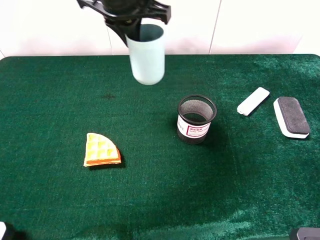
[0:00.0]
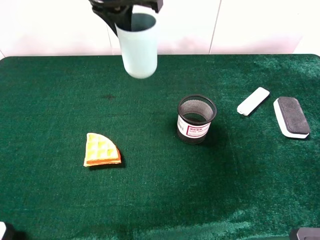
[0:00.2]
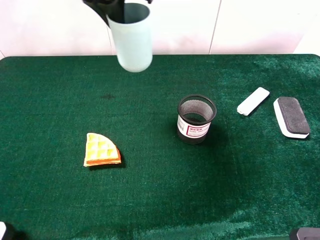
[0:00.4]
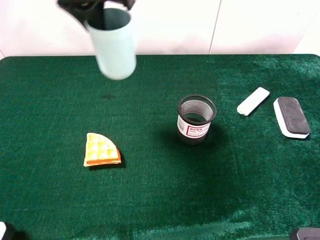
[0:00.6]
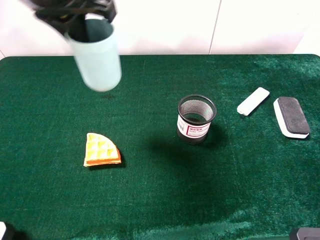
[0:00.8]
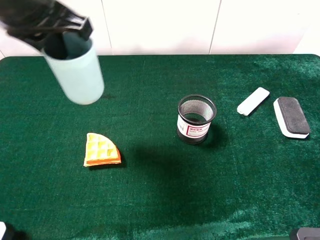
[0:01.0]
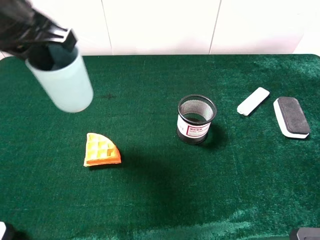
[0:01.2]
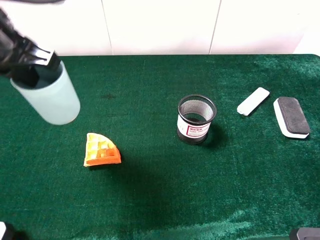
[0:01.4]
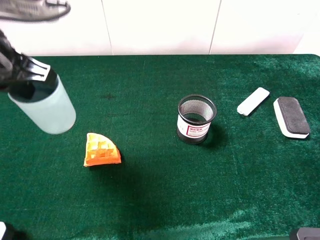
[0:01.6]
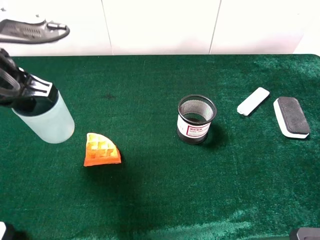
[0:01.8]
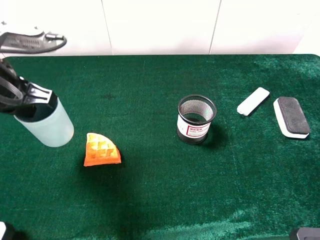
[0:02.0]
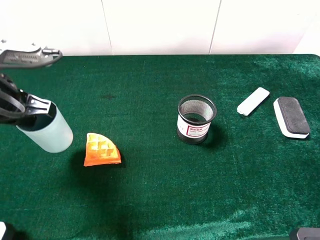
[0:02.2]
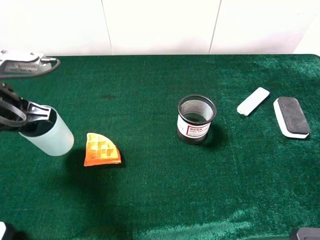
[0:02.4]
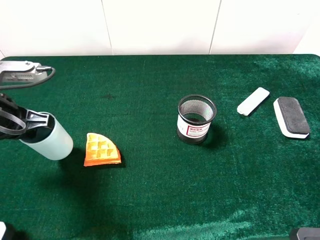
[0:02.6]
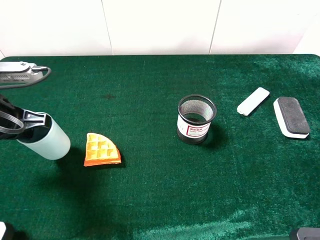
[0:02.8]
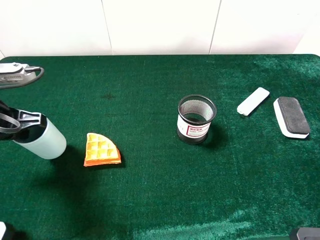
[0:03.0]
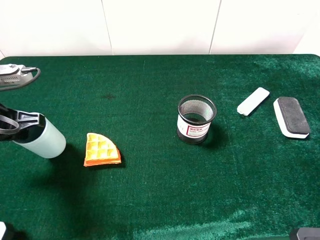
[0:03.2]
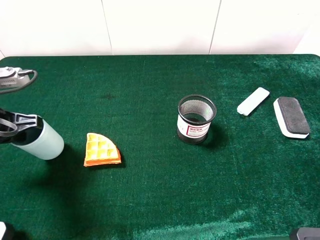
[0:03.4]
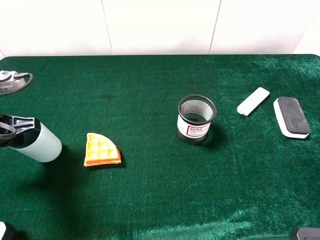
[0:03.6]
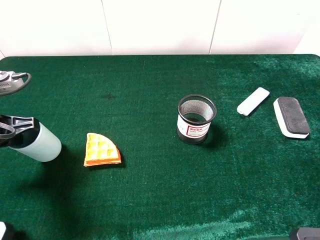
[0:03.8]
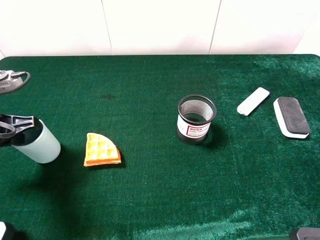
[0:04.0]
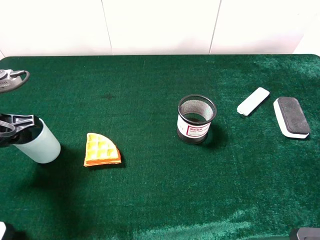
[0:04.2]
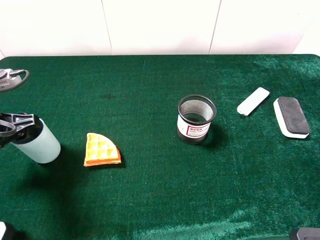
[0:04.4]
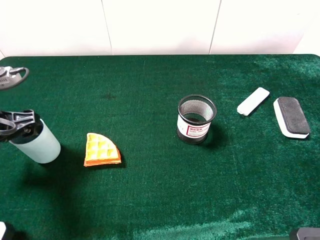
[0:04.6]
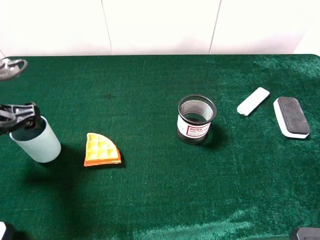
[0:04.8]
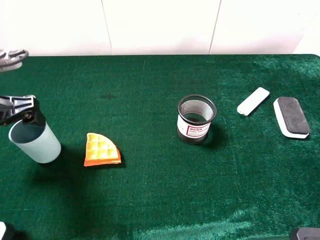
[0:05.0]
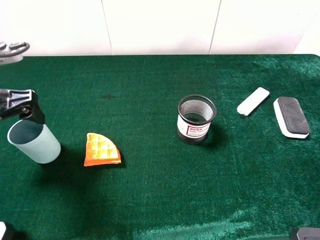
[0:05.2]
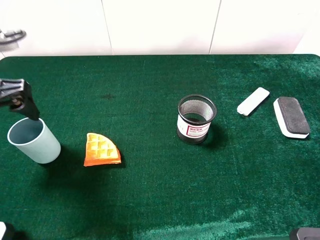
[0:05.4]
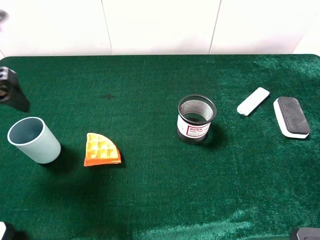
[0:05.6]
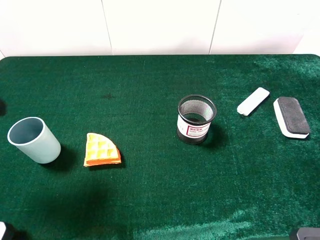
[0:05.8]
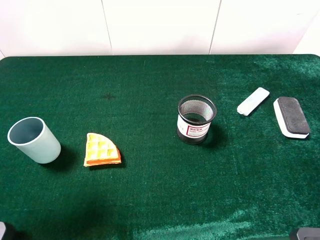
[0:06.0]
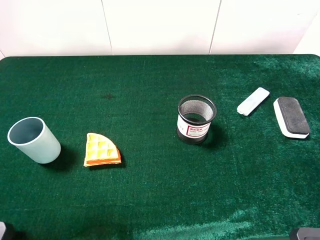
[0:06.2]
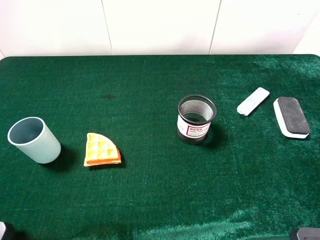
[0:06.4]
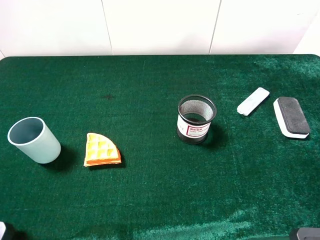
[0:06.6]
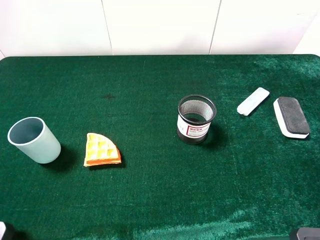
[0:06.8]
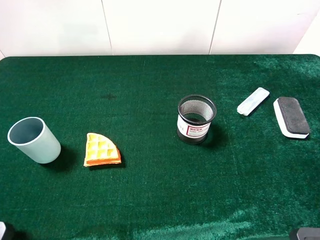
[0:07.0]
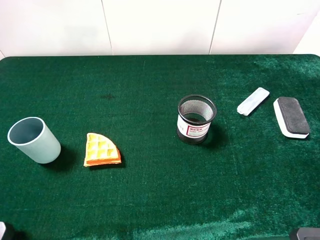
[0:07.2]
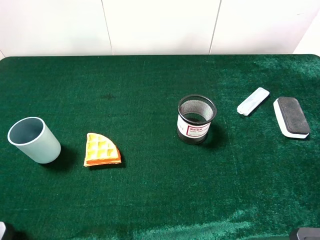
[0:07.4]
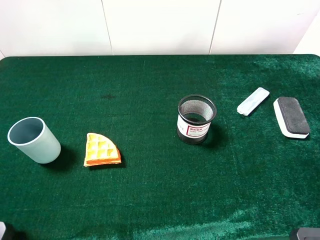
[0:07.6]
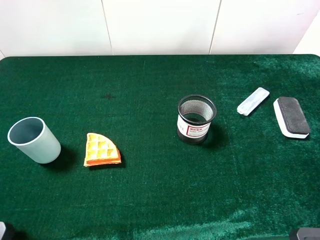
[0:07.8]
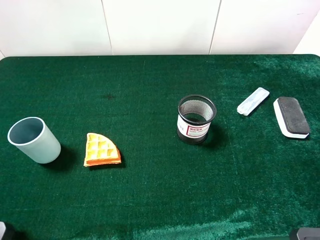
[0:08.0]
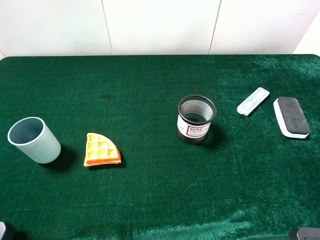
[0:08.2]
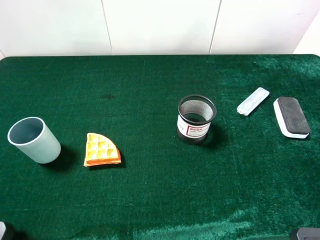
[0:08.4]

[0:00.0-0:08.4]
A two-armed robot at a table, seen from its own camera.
Task of the whole recording: the gripper move the object.
Step, 0:00.0 to 0:05.2: Place the cyan cup on the table with the left gripper.
0:00.0 to 0:01.4: The left gripper goes approximately 20 cm backward and to the left.
0:01.4 to 0:02.8: The left gripper heads downward and to the left, covering about 15 cm.
0:02.8 to 0:04.2: The left gripper opens up.
0:04.2 to 0:05.6: The left gripper heads upward, covering about 10 cm, and opens.
0:05.6 to 0:07.0: The left gripper is displaced backward by about 15 cm.

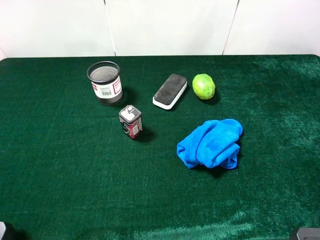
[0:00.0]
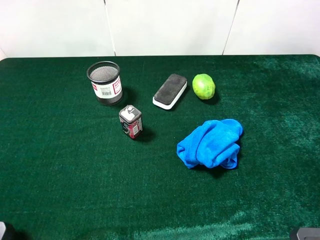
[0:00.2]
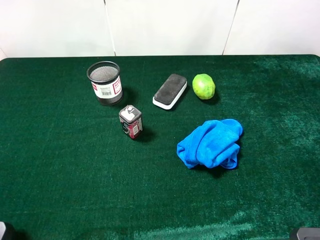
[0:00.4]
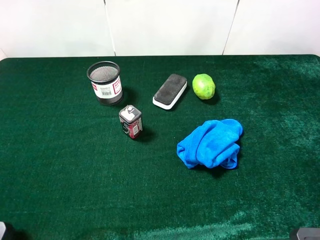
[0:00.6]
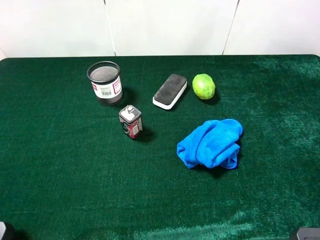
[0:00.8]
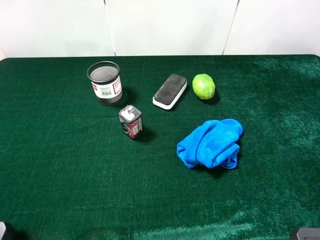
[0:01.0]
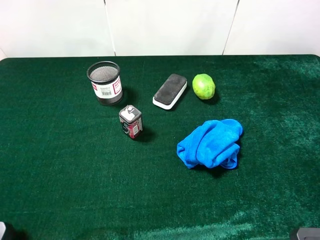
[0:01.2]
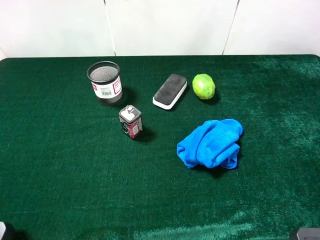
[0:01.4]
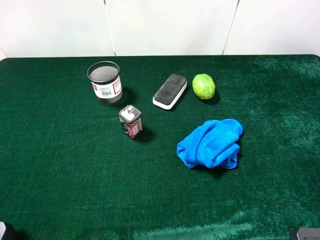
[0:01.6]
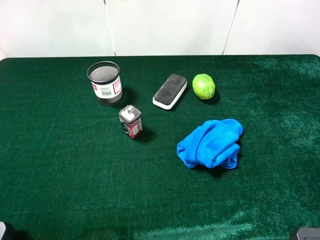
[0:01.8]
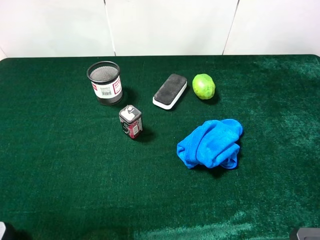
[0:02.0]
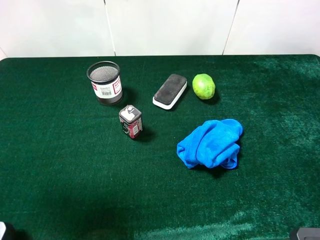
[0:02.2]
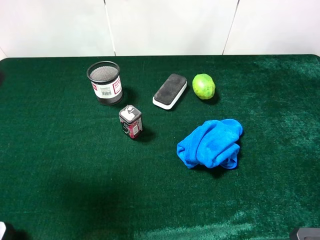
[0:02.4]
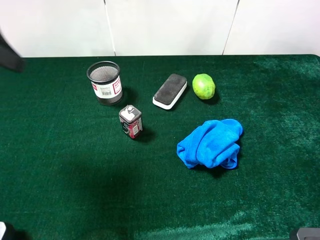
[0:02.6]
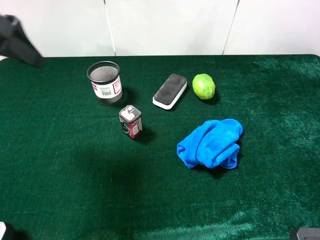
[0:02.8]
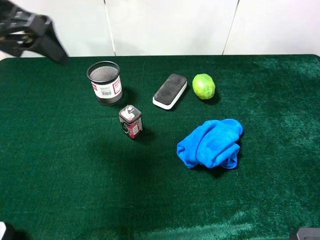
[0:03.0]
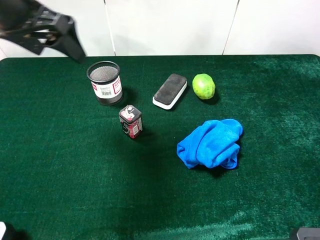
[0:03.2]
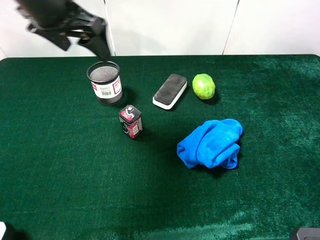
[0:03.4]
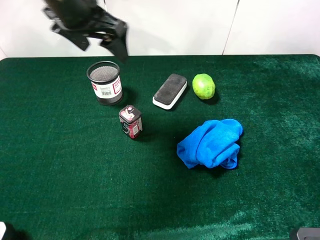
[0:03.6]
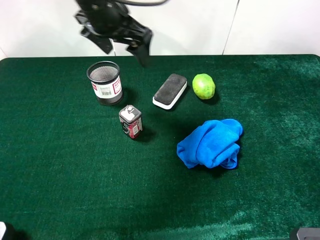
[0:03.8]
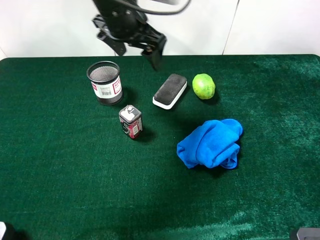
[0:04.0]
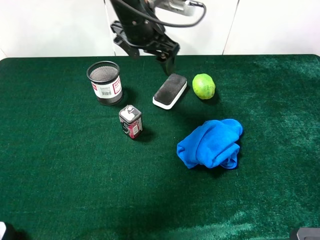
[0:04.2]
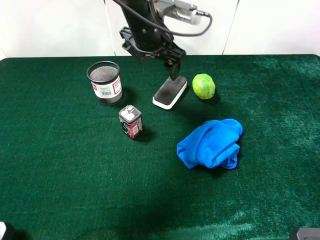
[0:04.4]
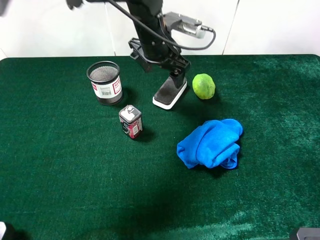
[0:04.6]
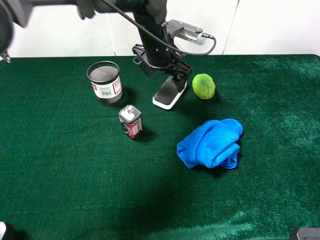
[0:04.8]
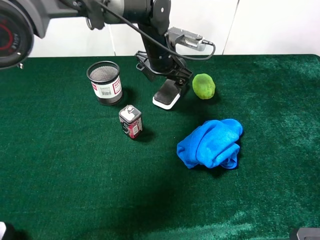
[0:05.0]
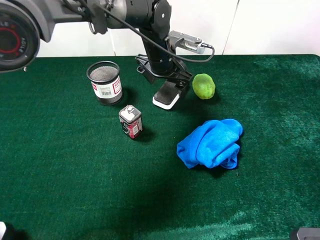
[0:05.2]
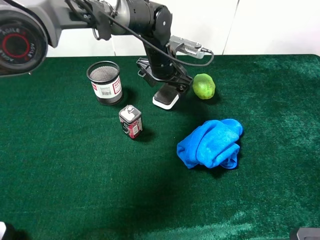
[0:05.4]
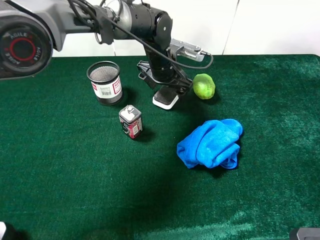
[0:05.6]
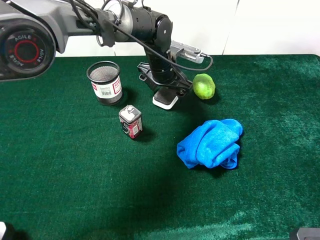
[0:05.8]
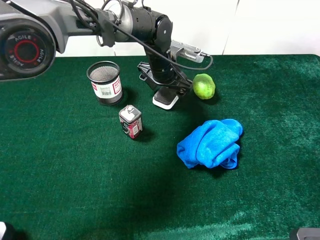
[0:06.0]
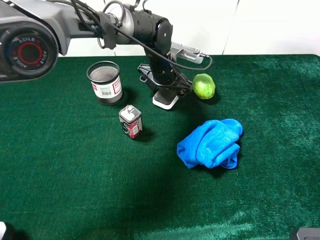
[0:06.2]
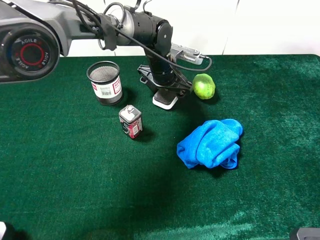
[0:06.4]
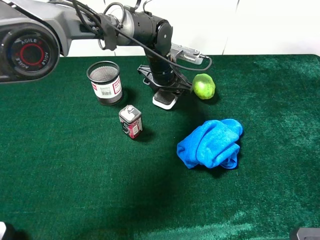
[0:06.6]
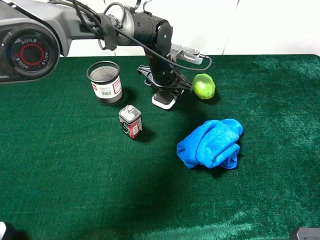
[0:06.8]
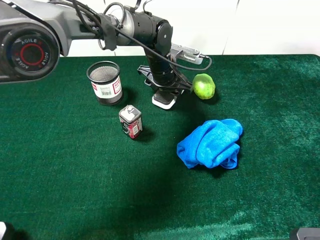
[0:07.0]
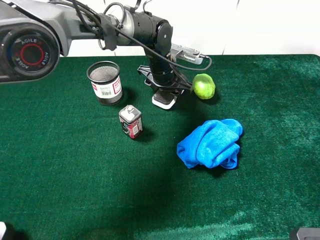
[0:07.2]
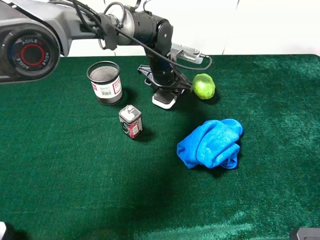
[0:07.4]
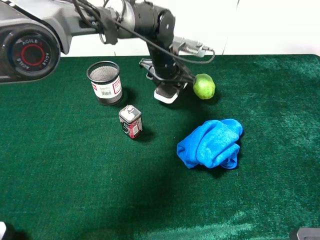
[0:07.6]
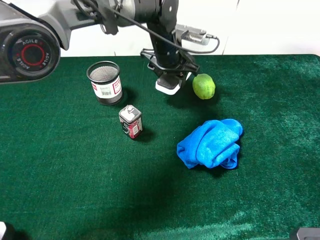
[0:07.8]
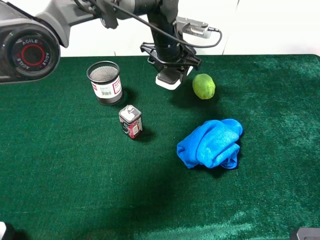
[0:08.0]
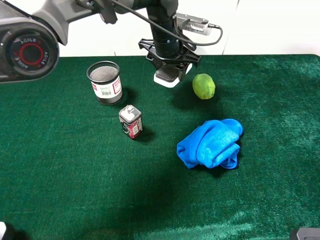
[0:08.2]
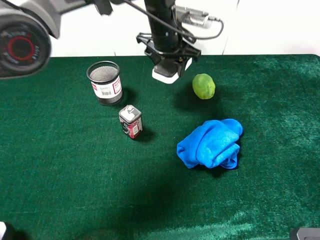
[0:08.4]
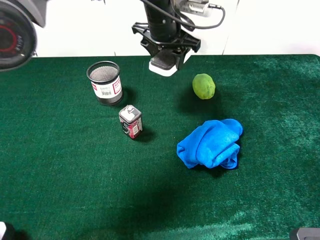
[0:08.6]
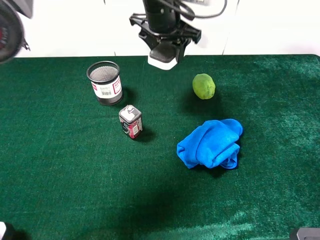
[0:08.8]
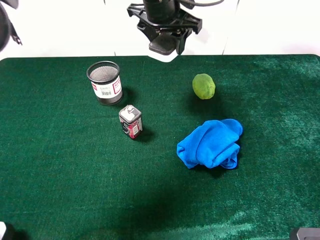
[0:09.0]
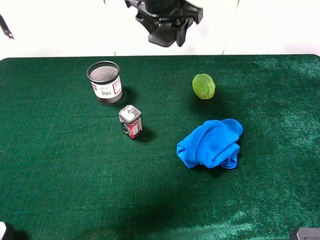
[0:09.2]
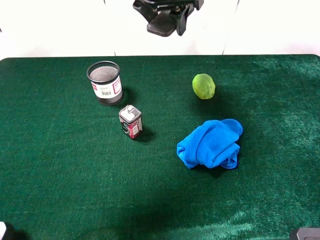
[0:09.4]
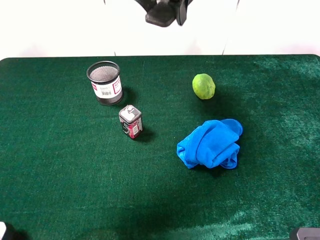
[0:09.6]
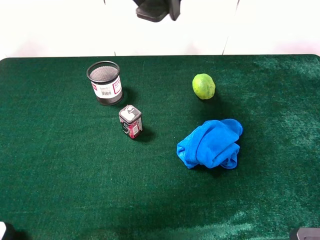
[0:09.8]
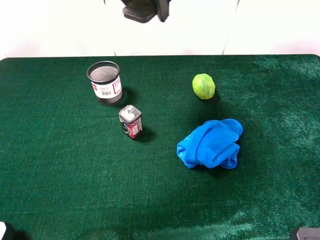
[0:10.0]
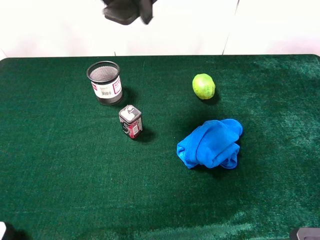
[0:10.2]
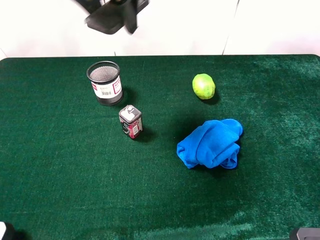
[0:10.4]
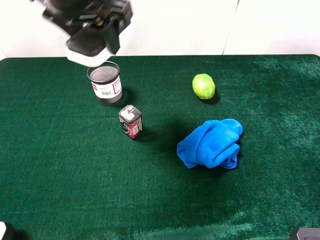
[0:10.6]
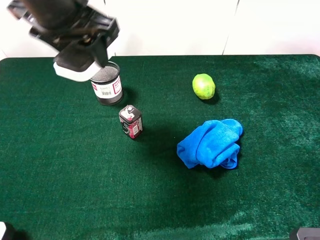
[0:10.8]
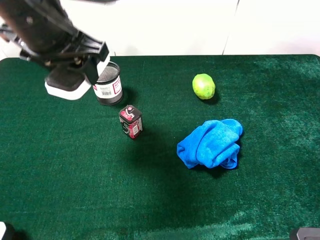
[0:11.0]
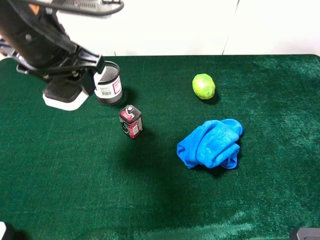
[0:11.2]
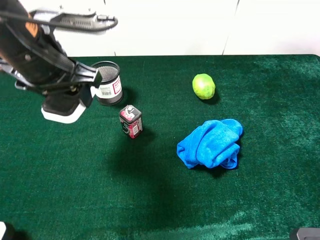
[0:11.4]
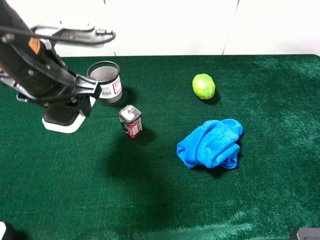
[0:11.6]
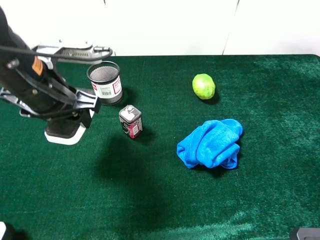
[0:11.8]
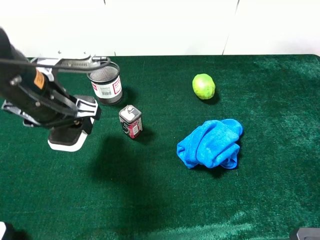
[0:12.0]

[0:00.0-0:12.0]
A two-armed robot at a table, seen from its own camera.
Task of the whole recording: the gripper move the object.
Step, 0:00.0 to 0:07.2: Grasp the white blackboard earser with the left gripper.
0:01.6 to 0:03.0: The left gripper moves forward, roughly 20 cm.
0:03.0 to 0:04.4: The left gripper is displaced to the right, forward and downward by approximately 25 cm.
0:04.4 to 0:06.0: The left gripper heads downward, covering some 10 cm.
0:06.0 to 0:07.6: The left gripper closes its fingers.
0:07.6 to 0:09.0: The left gripper goes about 15 cm upward.
0:09.0 to 0:10.4: The left gripper moves backward, to the left and upward, about 15 cm.
0:10.4 to 0:12.0: The left gripper heads downward, backward and to the left, covering approximately 20 cm.

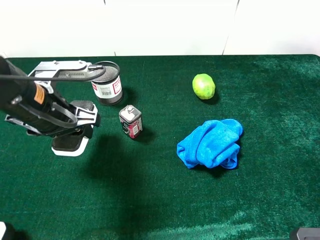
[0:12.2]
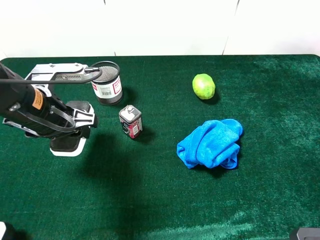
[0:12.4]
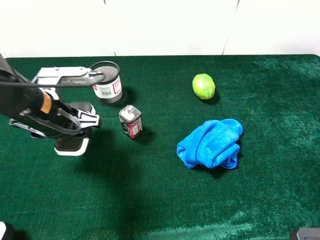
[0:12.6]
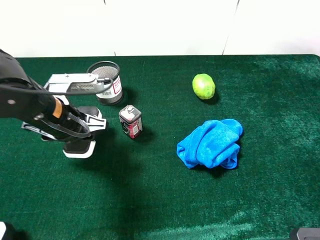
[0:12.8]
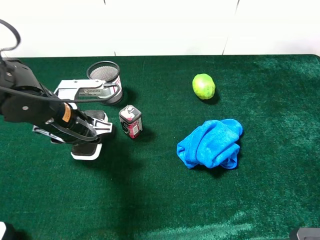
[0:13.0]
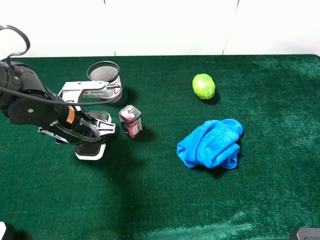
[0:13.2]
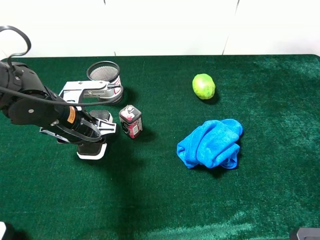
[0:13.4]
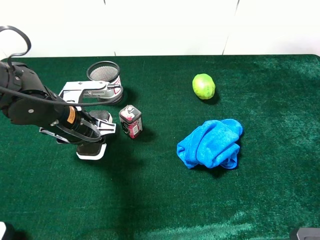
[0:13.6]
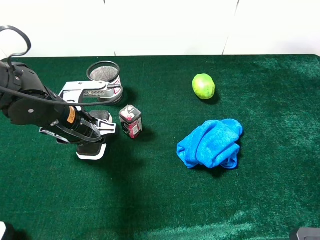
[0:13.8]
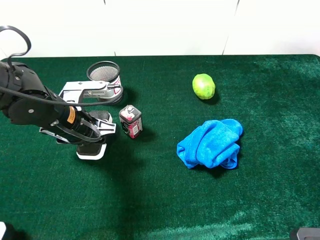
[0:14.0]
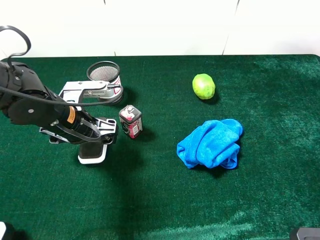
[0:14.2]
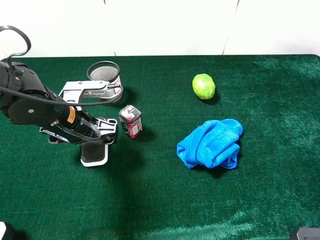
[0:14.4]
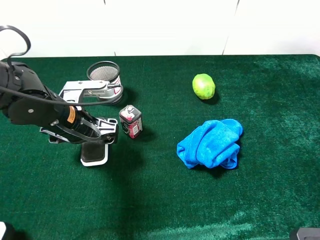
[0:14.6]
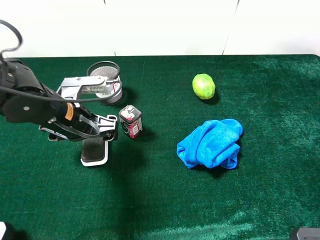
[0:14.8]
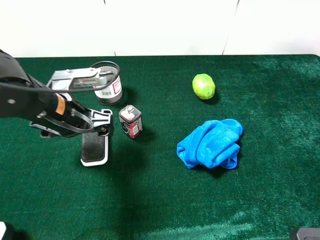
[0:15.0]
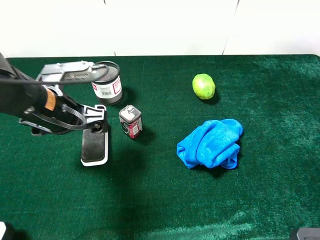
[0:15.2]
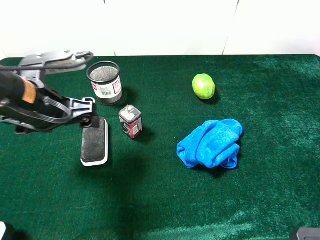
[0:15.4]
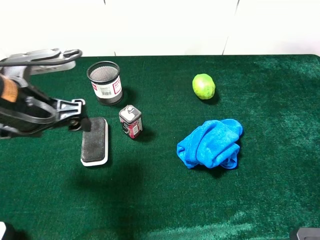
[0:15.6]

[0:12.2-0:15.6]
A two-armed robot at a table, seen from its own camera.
Task of the whole recording: the gripper move the object.
Step, 0:12.2 to 0:15.0: Place the white blackboard earser on the table with the left gripper.
0:12.2 to 0:13.8: The left gripper goes some 5 cm downward.
0:13.8 to 0:15.6: The left gripper shifts roughly 10 cm upward, and opens its fingers.
